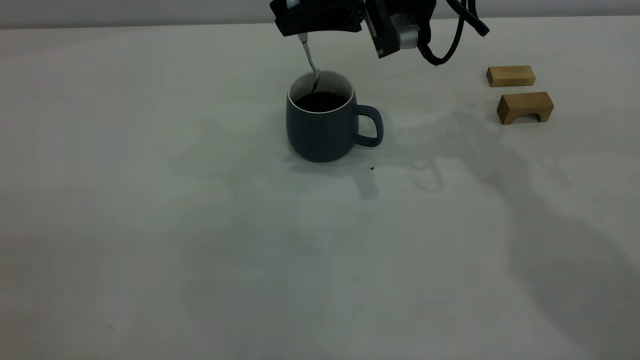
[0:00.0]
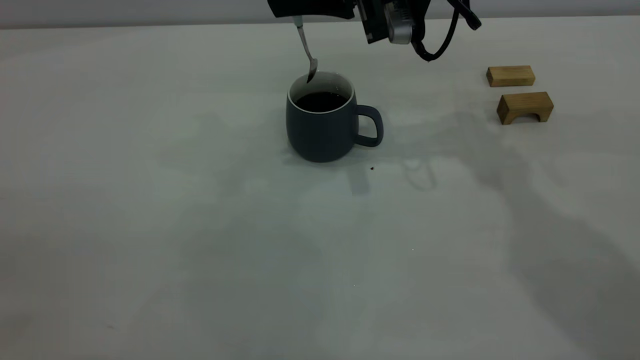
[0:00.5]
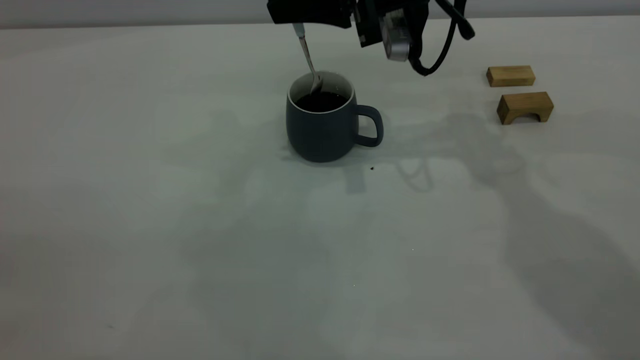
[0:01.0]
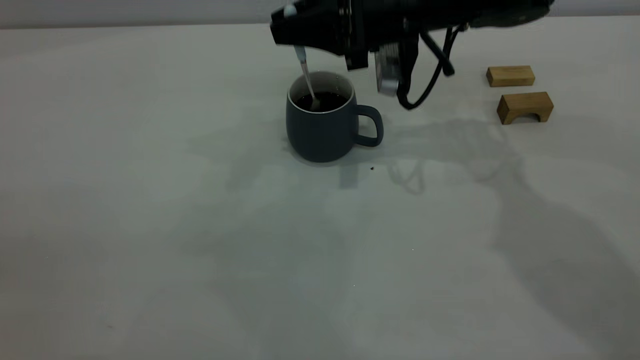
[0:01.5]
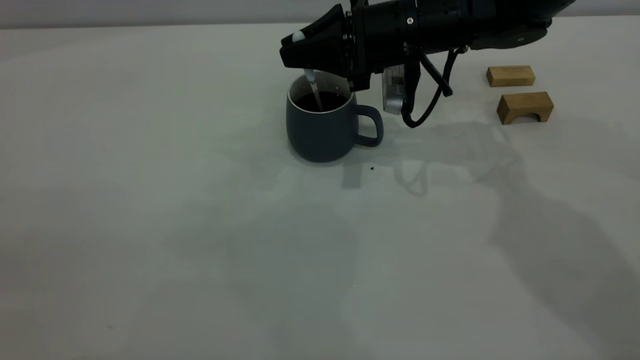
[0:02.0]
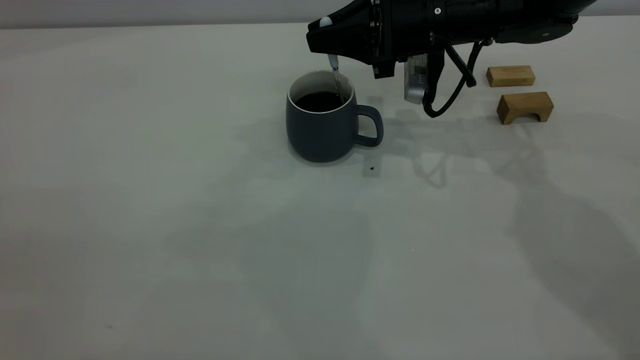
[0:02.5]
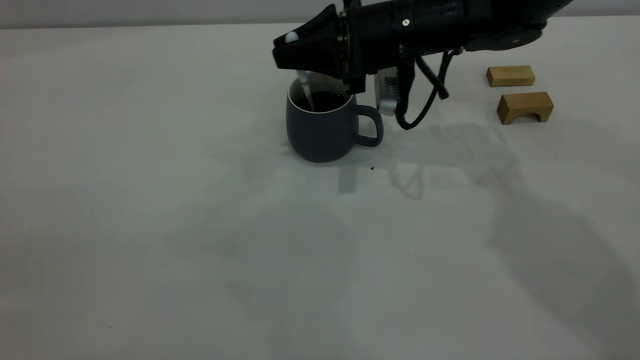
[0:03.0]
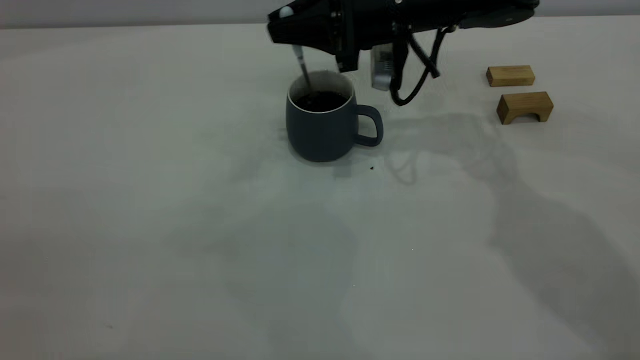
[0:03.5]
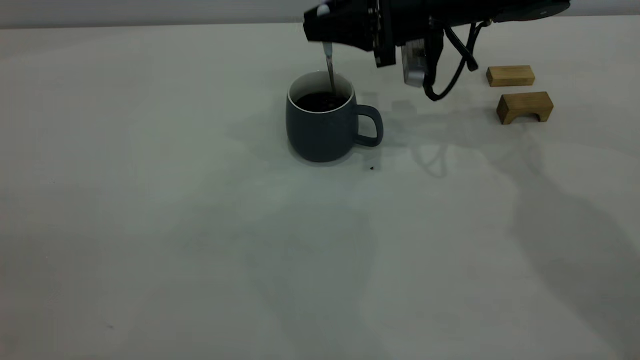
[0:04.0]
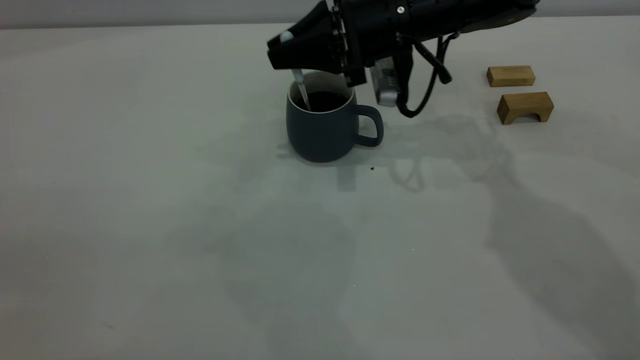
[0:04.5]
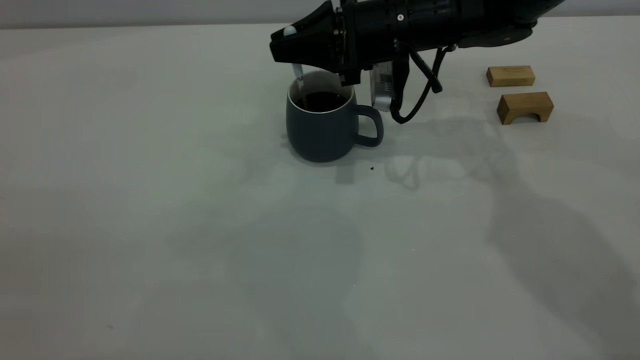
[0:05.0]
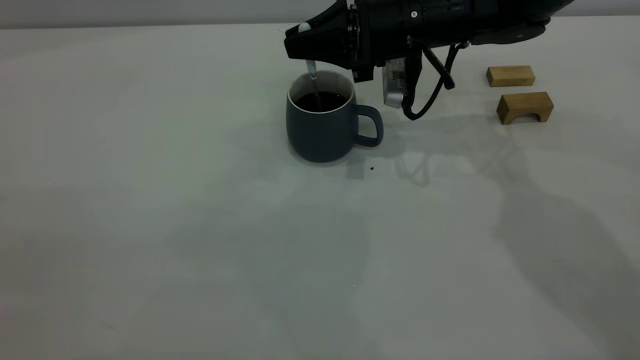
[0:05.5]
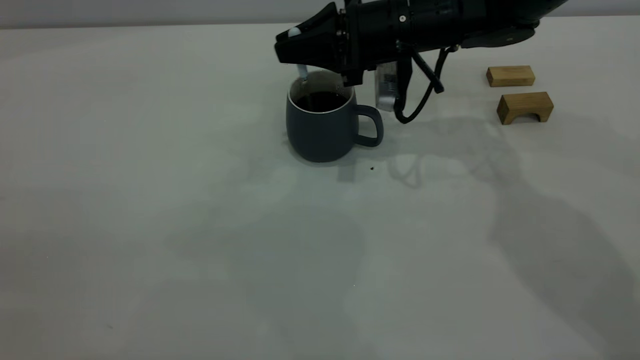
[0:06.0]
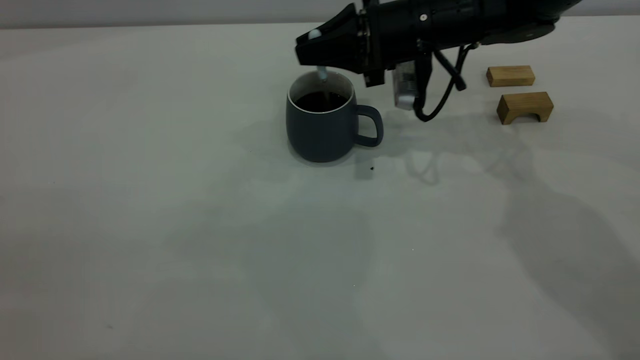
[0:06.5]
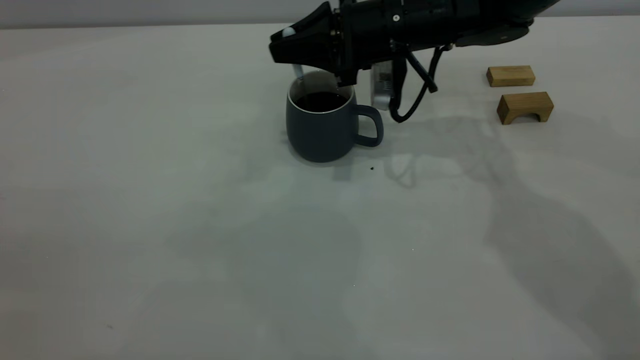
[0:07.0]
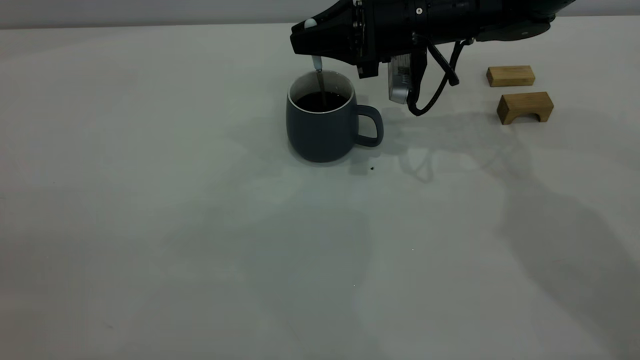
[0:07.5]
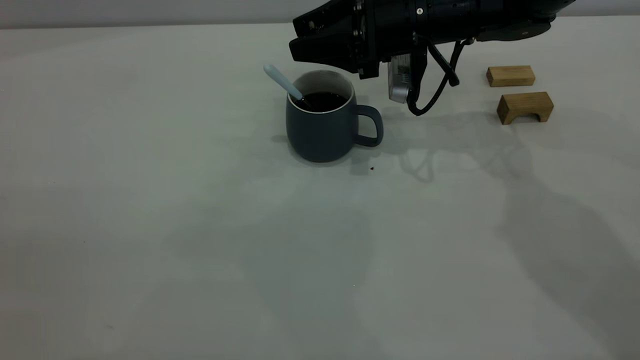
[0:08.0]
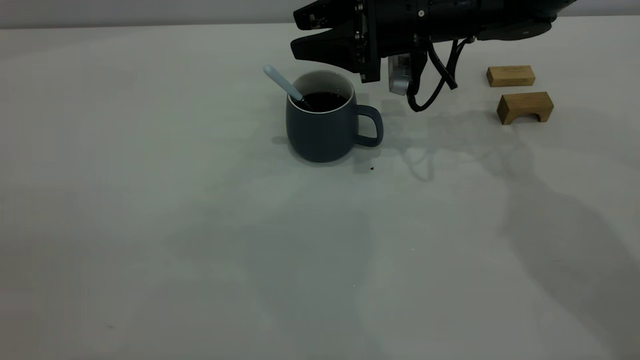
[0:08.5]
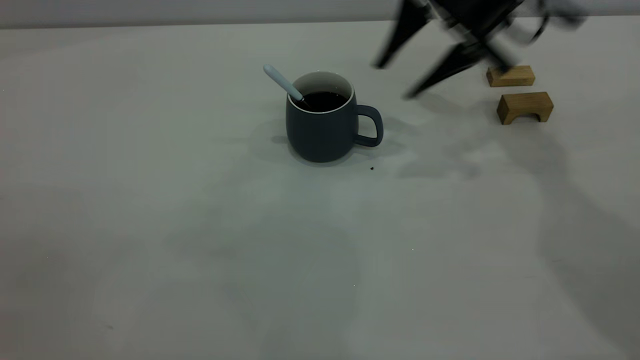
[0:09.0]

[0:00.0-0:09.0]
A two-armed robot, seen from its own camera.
Step, 0:00.0 to 0:08.5: Stir the coffee in the cup.
0:00.0 to 0:02.0: The right gripper heads downward, covering approximately 10 cm.
0:02.0 to 0:07.0: The grippers move only a little.
0:07.0 to 0:09.0: The right gripper shifts roughly 10 cm to the right and upward, and opens.
